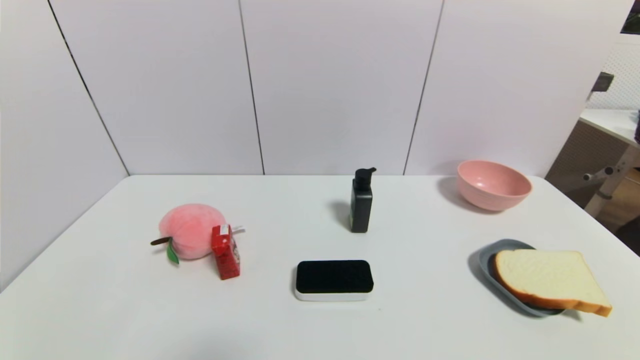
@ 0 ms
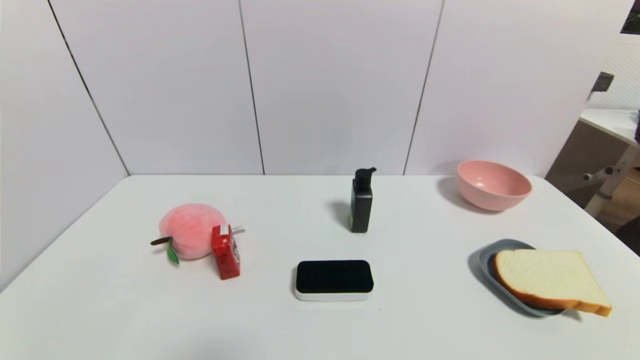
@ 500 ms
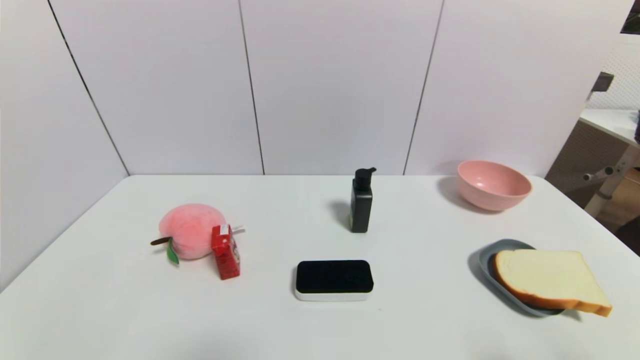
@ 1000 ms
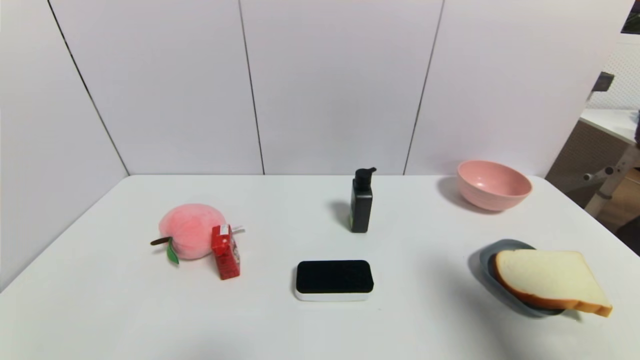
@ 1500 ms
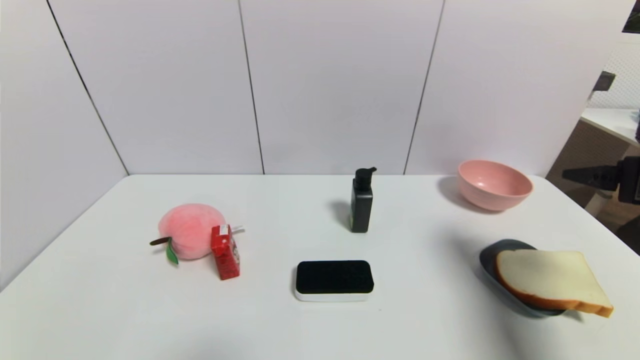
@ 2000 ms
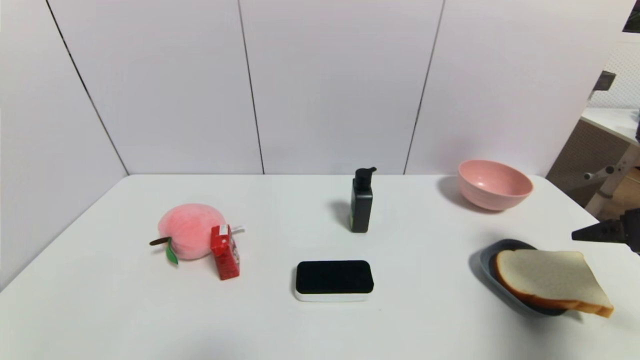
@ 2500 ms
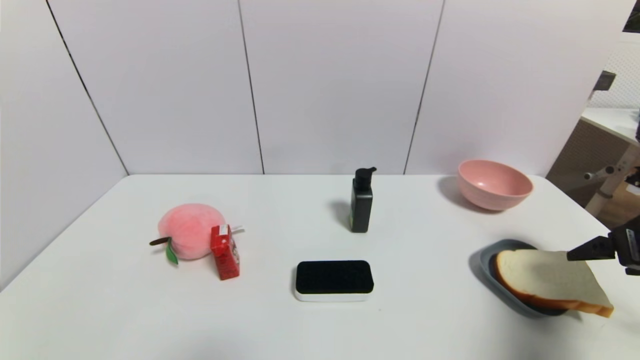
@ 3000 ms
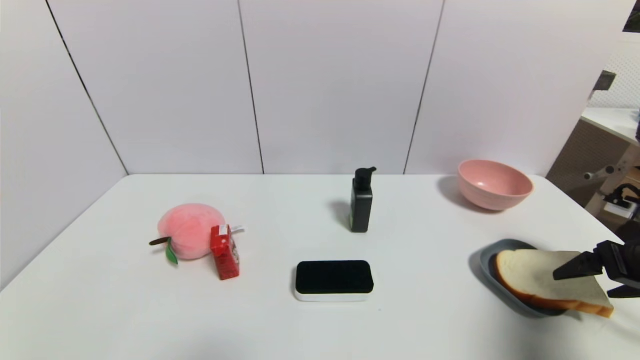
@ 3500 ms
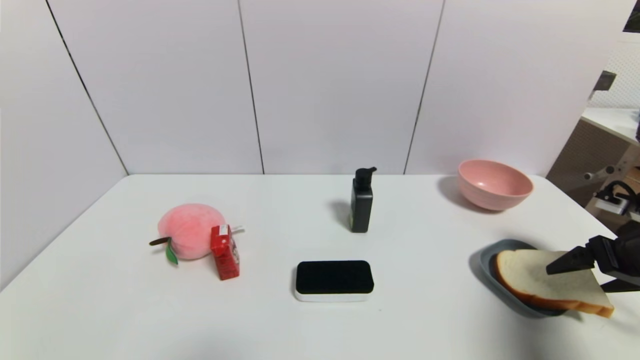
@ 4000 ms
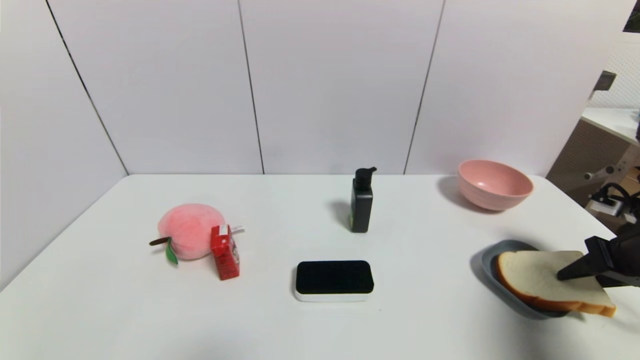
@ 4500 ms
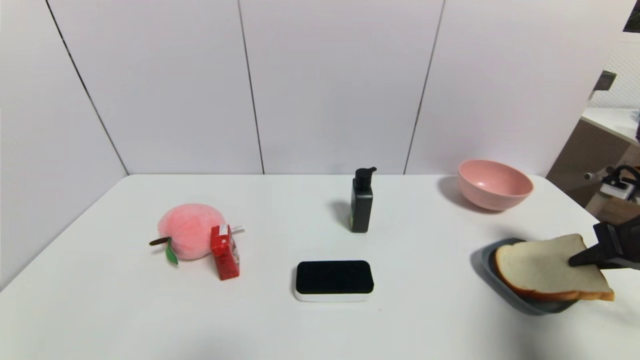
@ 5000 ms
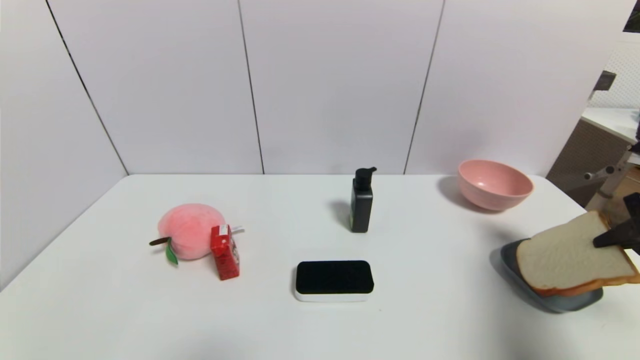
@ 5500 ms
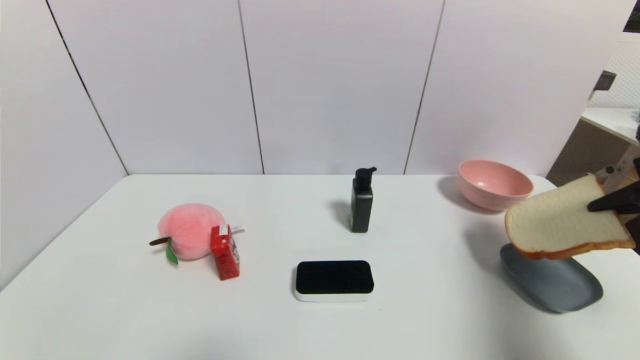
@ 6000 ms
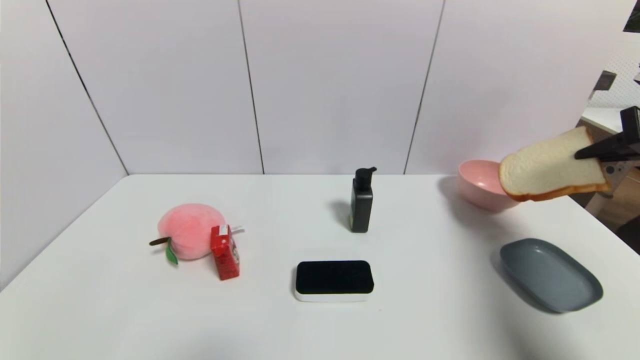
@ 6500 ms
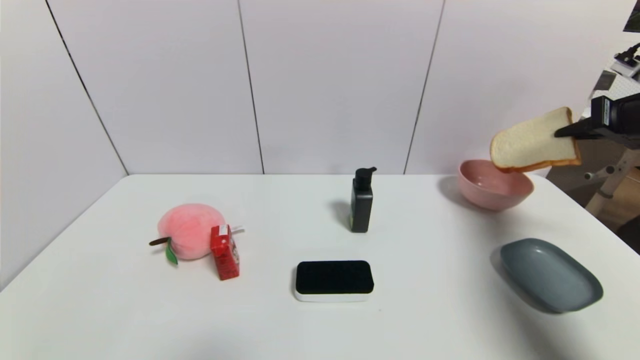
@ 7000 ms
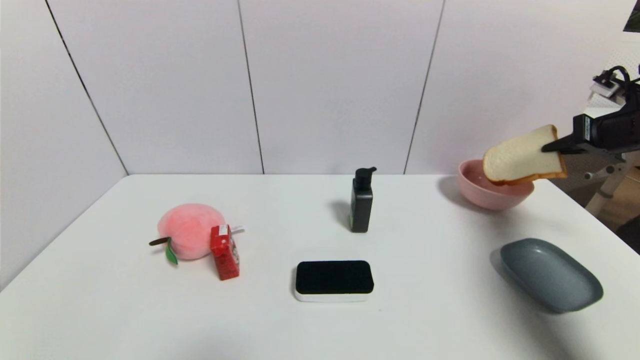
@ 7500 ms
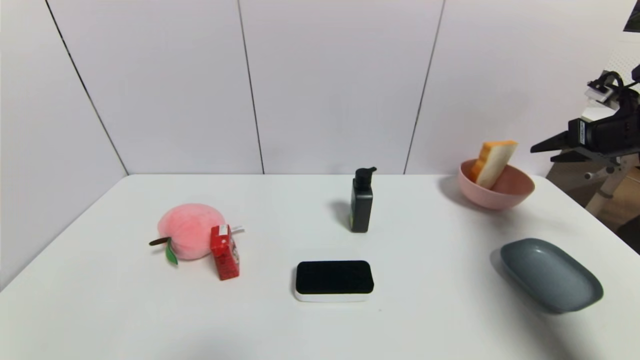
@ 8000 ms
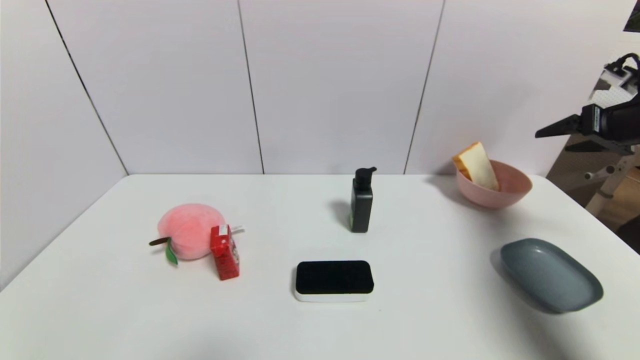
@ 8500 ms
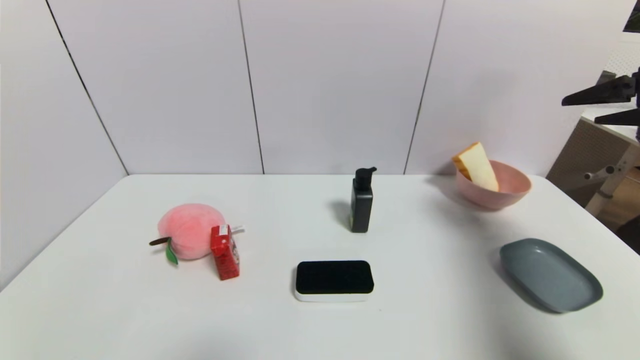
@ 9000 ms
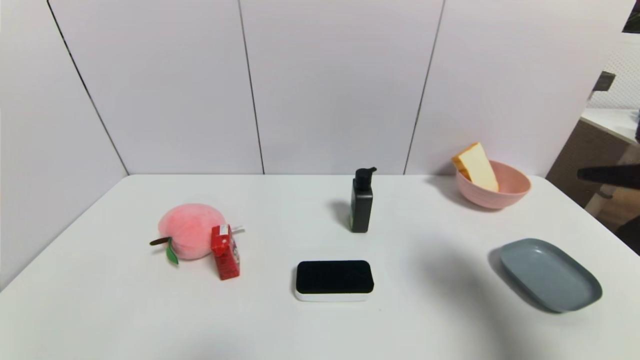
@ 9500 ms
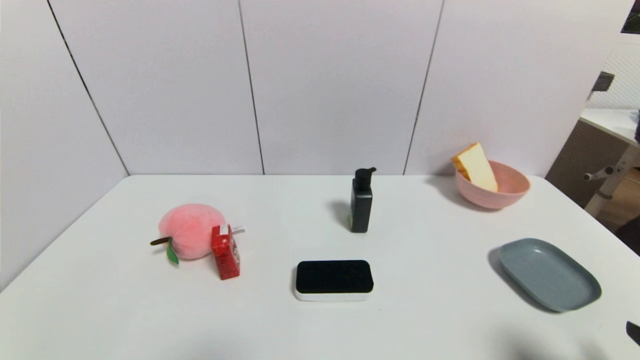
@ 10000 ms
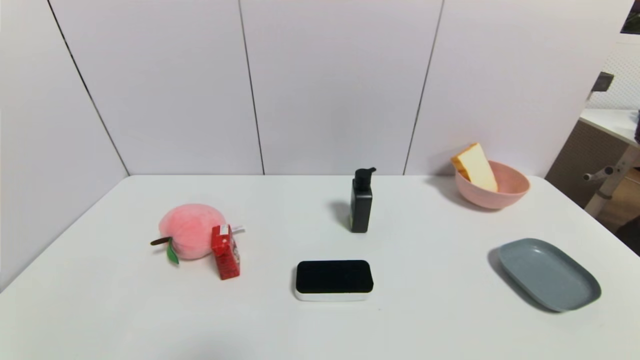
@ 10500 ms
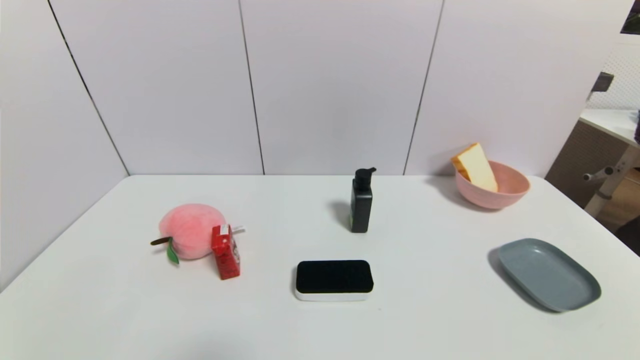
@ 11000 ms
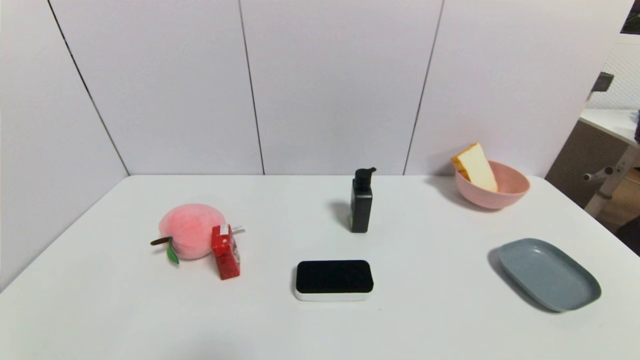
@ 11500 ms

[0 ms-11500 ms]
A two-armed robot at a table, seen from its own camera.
Task of the whole recording: use a gripper to pick the target object and place on the pink bowl.
Step, 0 ms to 4500 ms: Grasp the bread slice with the right gripper.
Step, 5000 ms to 8000 ms: Place the bread slice on the pink bowl with the right gripper.
0 ms to 2000 ms: The right gripper moves forward and upward, roughly 30 cm.
2000 ms to 4000 ms: The right gripper moves downward and to the right, roughly 10 cm.
4000 ms to 6000 ms: The right gripper is displaced upward by about 10 cm, and closes up.
6000 ms to 7500 ms: The right gripper shifts approximately 15 cm forward.
7500 ms to 9500 ms: The right gripper shifts about 25 cm backward and to the left, and opens its fingers.
9500 ms to 11500 ms: The right gripper travels downward and backward by approximately 25 cm.
